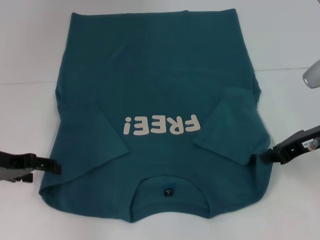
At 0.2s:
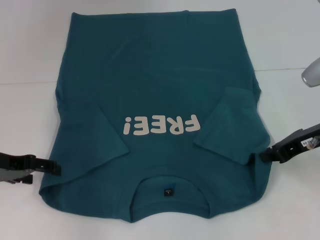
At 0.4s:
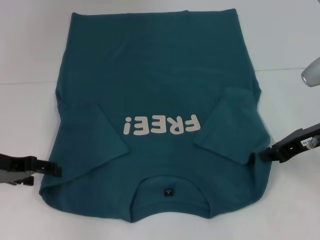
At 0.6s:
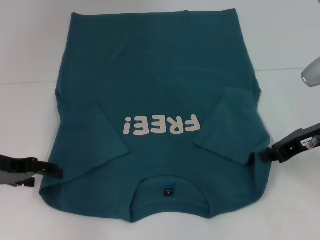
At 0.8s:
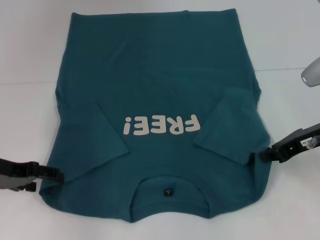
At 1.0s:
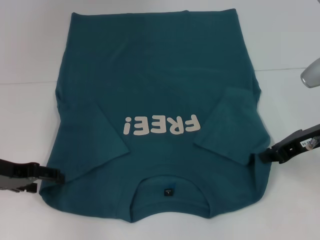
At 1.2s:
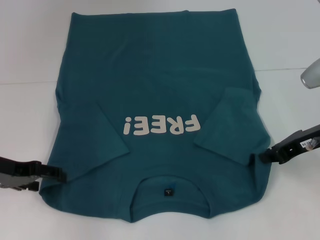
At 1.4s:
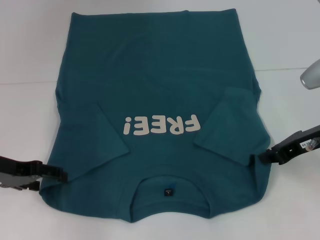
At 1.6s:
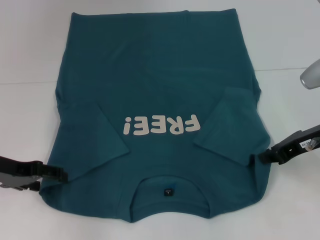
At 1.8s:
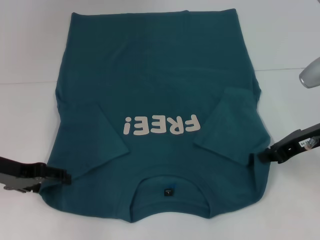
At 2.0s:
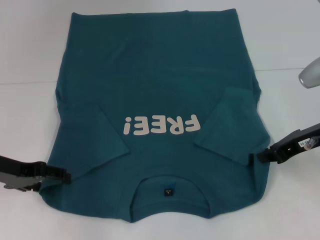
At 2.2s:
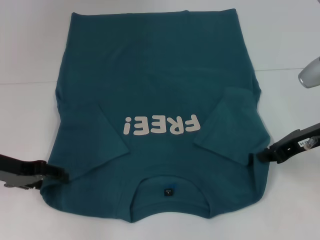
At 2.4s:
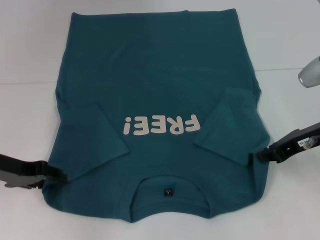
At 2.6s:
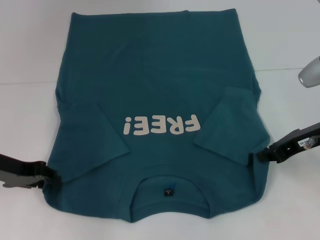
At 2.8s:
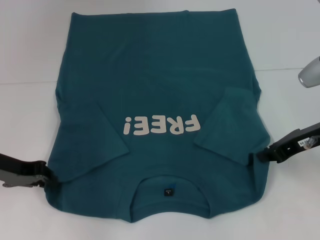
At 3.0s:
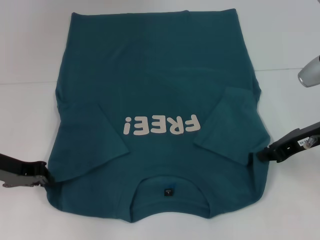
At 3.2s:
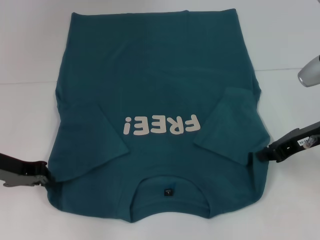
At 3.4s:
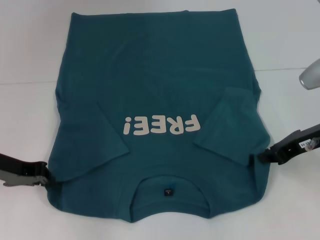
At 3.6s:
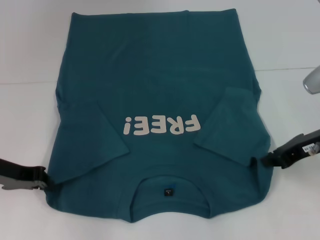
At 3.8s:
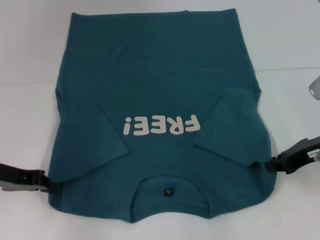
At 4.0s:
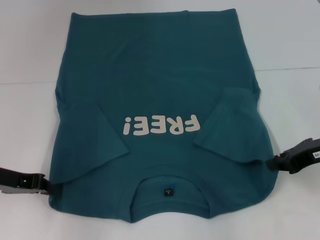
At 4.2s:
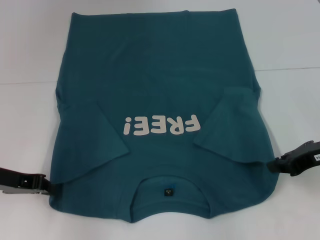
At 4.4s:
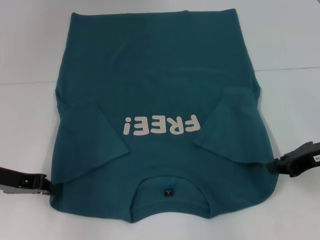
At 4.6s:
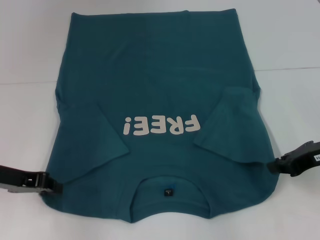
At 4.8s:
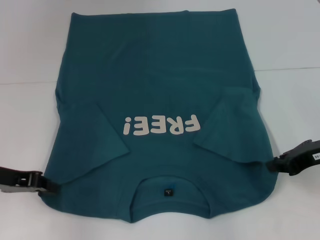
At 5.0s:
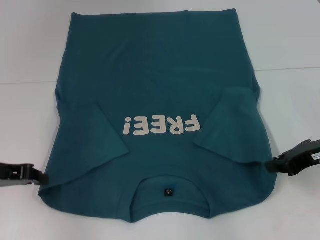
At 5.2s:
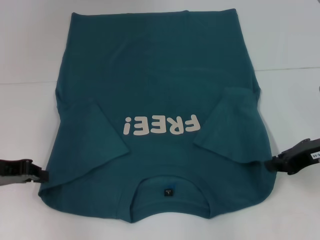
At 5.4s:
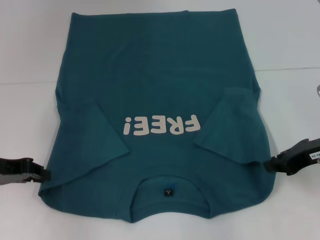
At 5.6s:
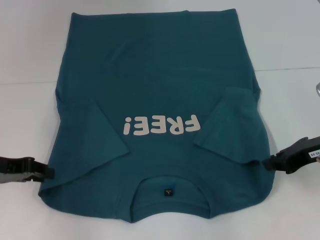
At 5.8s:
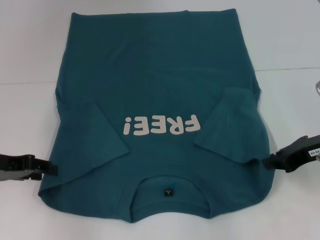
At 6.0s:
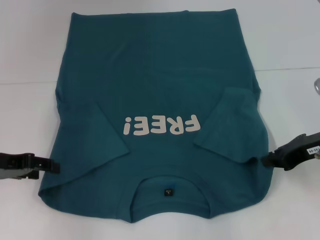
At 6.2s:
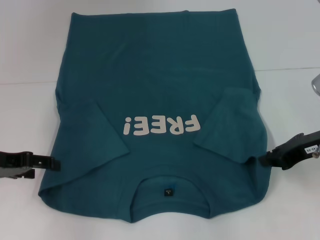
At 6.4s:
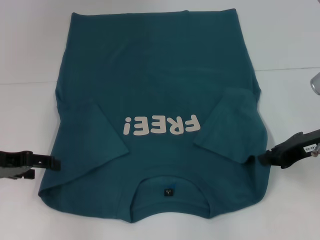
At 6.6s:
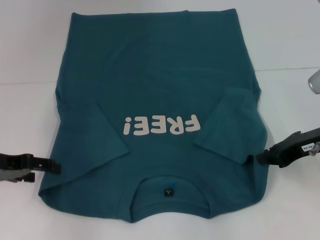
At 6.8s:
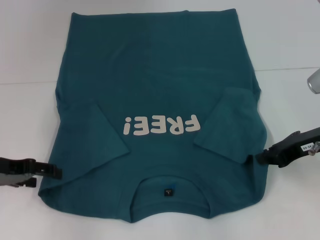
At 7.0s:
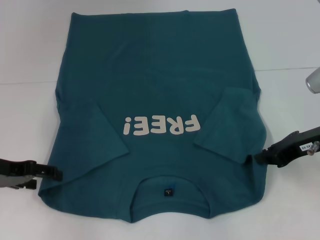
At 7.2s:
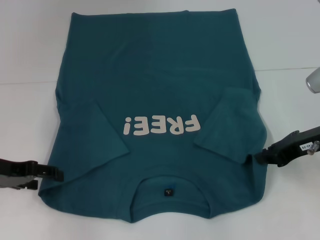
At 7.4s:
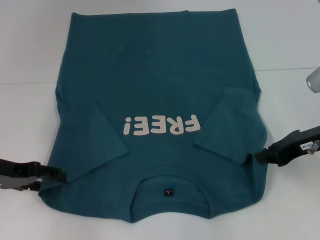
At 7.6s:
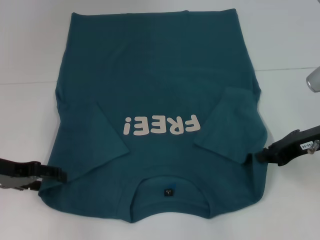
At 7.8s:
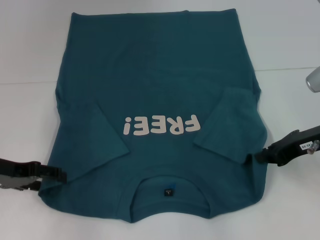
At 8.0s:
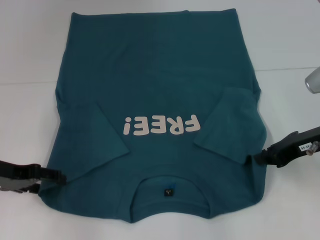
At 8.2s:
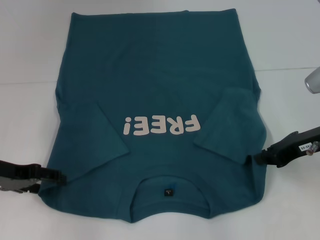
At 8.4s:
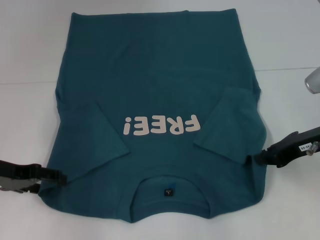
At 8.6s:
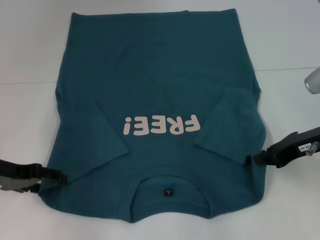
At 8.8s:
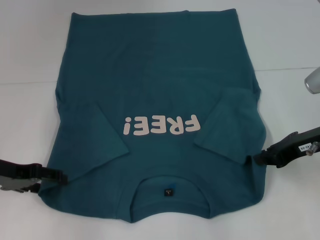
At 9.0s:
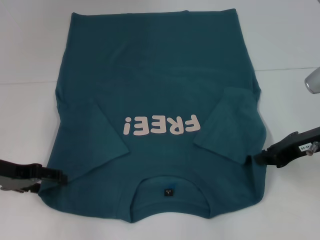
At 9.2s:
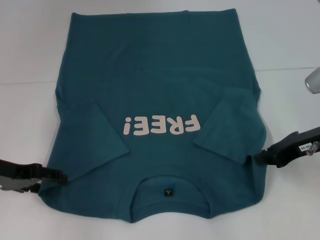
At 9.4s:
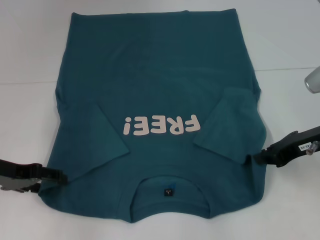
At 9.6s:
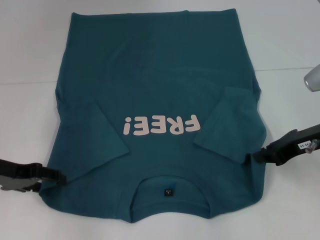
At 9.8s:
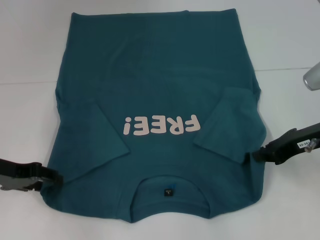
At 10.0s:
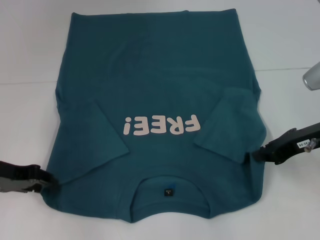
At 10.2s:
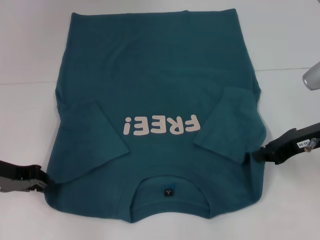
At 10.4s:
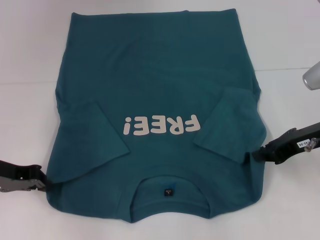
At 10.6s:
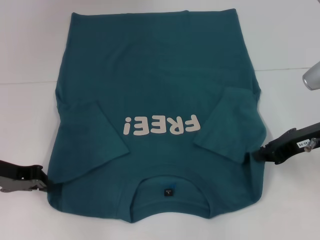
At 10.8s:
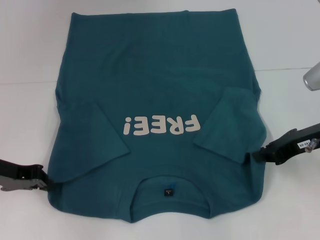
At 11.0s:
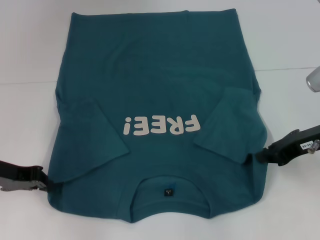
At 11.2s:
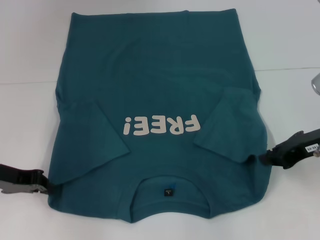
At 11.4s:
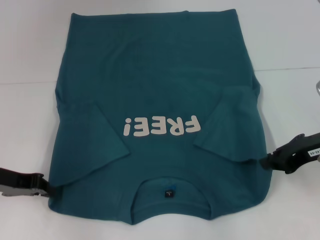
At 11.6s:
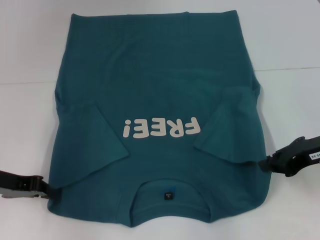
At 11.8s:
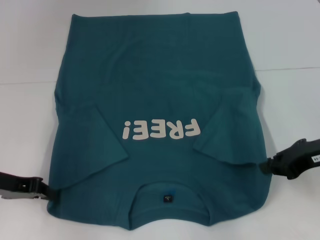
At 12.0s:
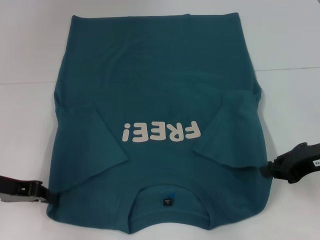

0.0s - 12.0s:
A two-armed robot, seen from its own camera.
Step, 0.0s - 11.8s: Grab the bottom left corner with your left hand.
0.0s - 1.6s: The two grippers keep their place.
1.6s - 3.0s: The left gripper closes.
3.0s - 4.4s: The grippers move only a little.
4.4s - 6.0s: The left gripper opens.
6.0s - 7.6s: The left gripper opens up.
7.6s - 9.0s: Both grippers stay put.
9.0s - 10.4s: The left gripper closes its fingers.
10.4s - 12.0s: There are only small adjustments of the grippers.

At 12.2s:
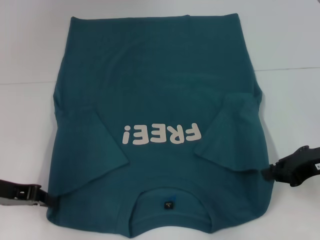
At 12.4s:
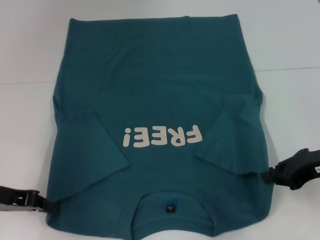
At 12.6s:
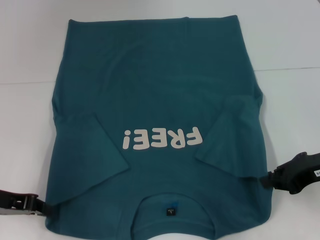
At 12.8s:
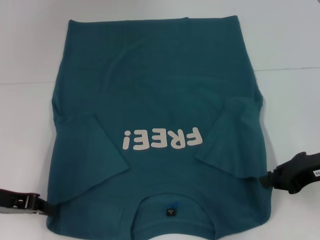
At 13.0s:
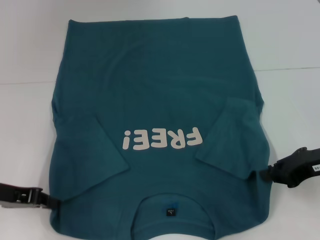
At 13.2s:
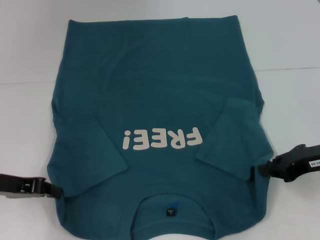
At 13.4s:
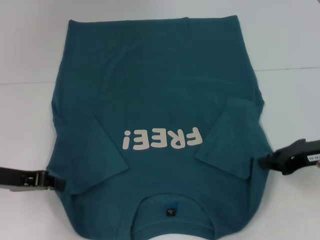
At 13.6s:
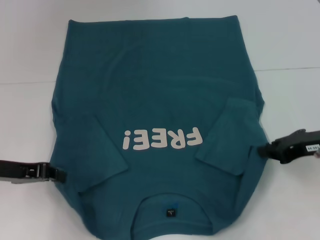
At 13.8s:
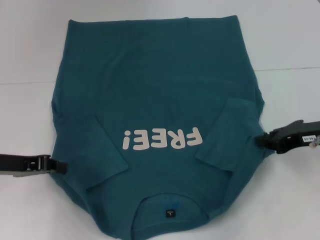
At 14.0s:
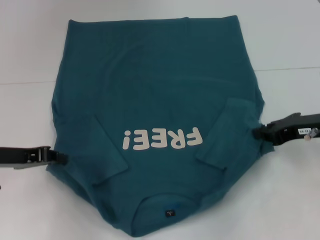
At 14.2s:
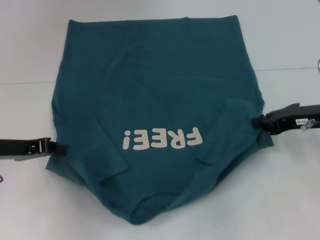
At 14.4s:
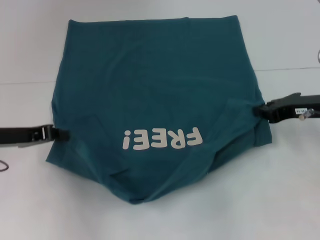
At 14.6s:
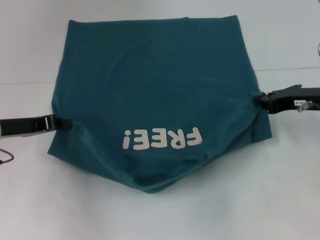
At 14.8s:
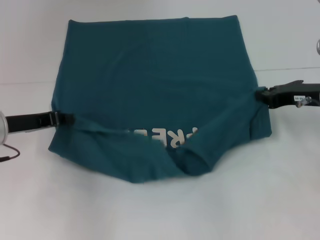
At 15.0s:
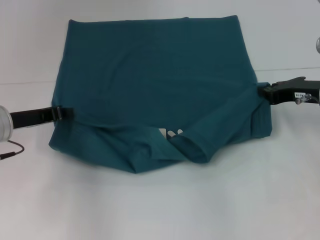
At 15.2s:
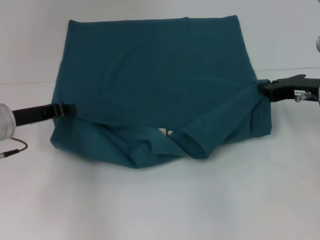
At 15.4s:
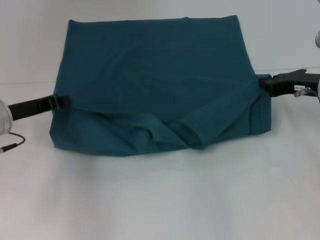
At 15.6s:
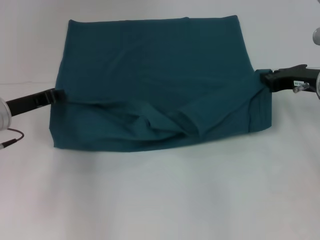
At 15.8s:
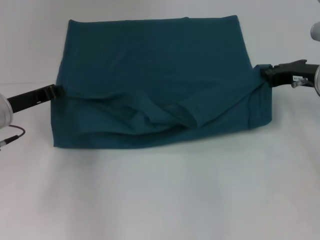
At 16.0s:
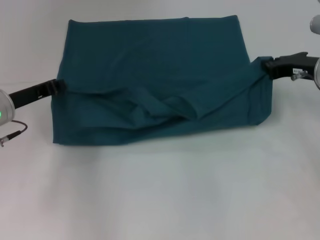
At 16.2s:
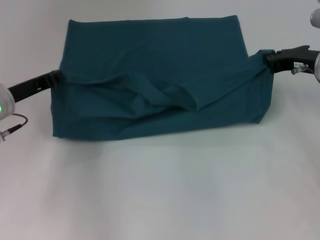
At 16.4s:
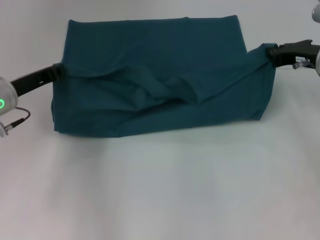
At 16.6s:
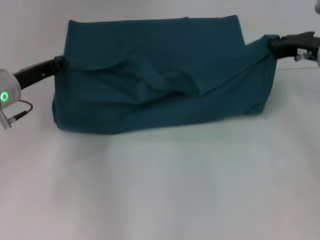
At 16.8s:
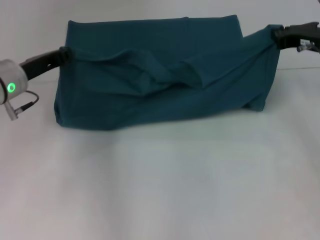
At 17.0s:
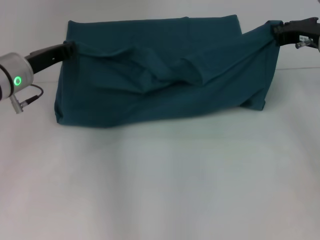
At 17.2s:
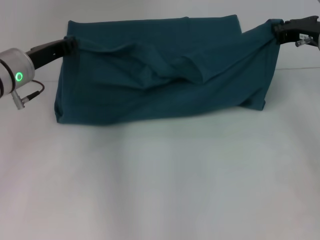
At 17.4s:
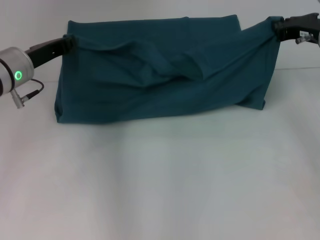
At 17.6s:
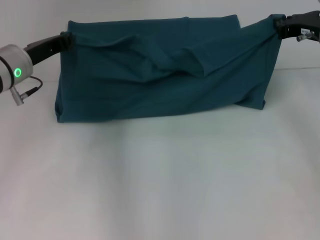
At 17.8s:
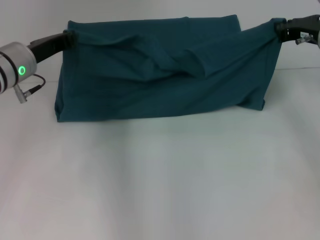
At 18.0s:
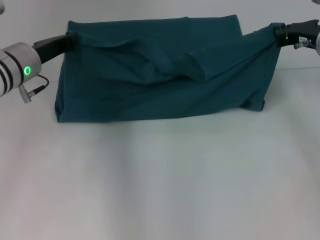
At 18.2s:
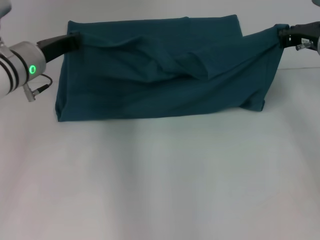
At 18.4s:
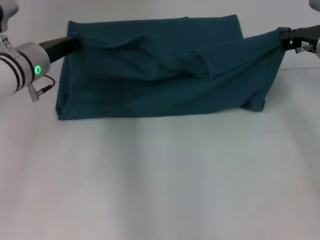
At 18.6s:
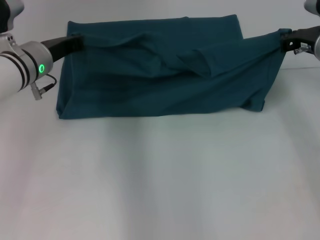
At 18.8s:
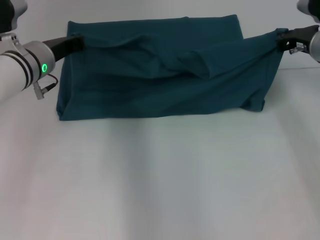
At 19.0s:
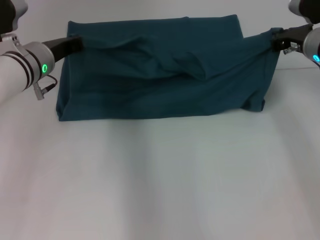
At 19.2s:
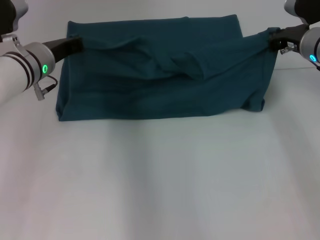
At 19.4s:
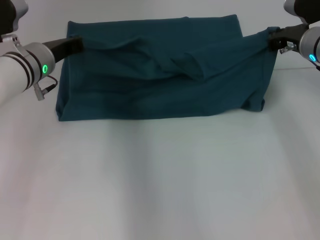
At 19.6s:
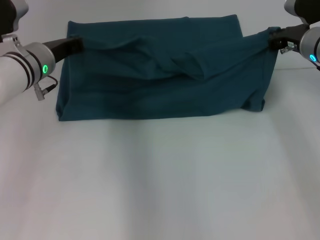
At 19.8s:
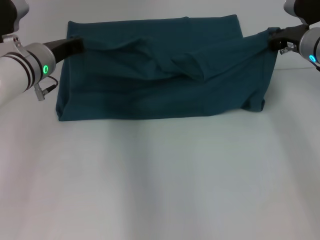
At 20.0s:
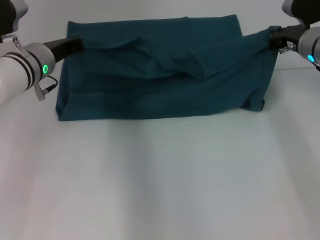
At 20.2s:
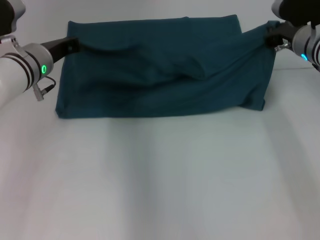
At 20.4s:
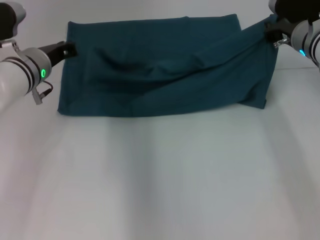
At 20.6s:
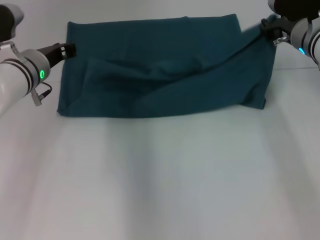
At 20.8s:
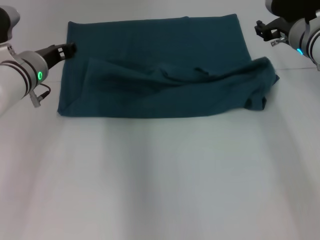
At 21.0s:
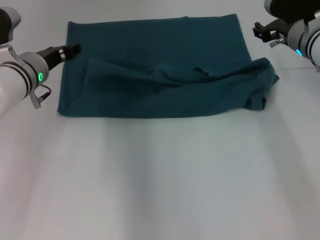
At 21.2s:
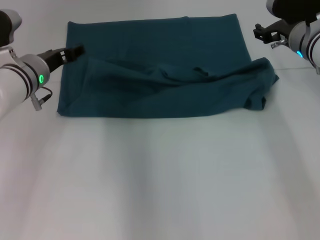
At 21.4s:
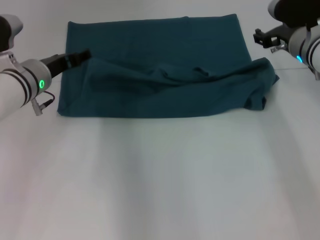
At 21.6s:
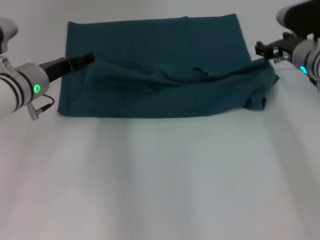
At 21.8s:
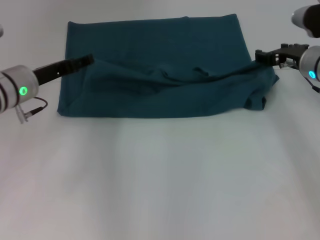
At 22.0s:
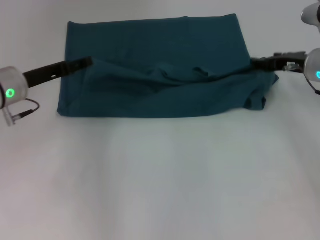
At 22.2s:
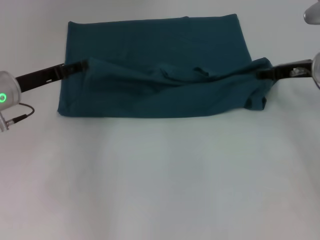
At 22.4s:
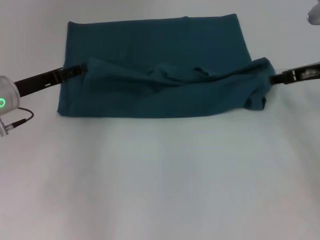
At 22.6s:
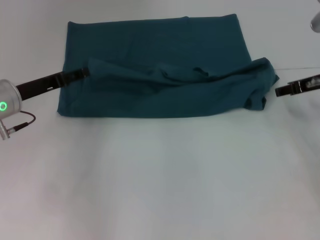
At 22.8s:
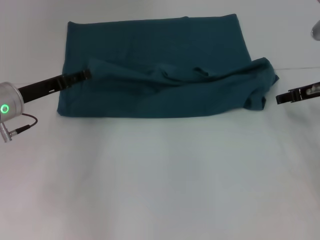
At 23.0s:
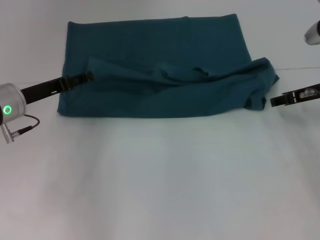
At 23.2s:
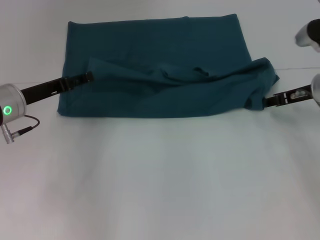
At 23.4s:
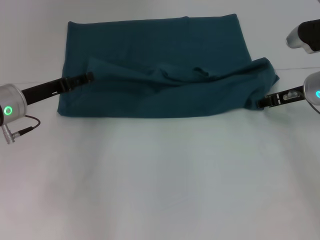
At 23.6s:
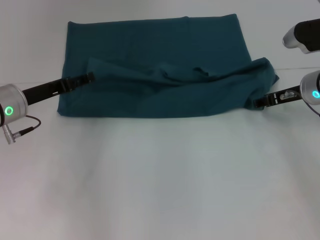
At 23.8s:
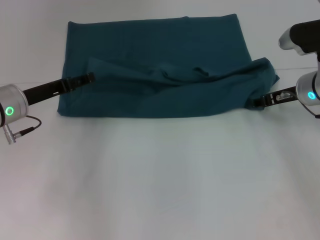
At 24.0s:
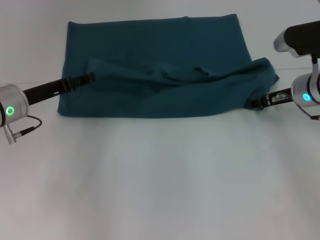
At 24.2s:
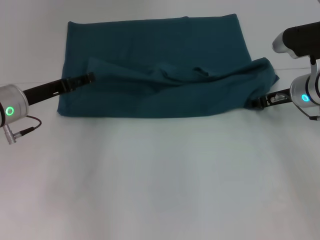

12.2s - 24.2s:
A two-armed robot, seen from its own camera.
Step, 12.2s - 21.0s: Fold the clothes to the left.
Step, 12.2s - 21.0s: Fold the clothes to the right.
12.2s - 13.8s: The grippers move only a little.
13.8s - 15.2s: The right gripper goes about 5 cm forward; the left gripper changes place by approximately 5 cm.
15.2s - 16.6s: The right gripper shifts by roughly 5 cm.
16.6s - 18.2s: The left gripper moves roughly 5 cm.
18.2s - 19.8s: The grippers stay close to where they were, moving slightly.
19.8s - 21.2s: The right gripper opens up. Meanwhile the left gripper opens its fingers.
21.2s - 22.6s: The left gripper heads to the left, covering approximately 5 cm, while the right gripper moves to the right and backward, about 10 cm.
22.6s - 24.2s: The right gripper changes place by approximately 5 cm.
